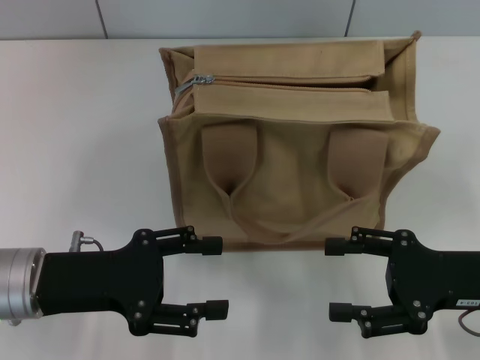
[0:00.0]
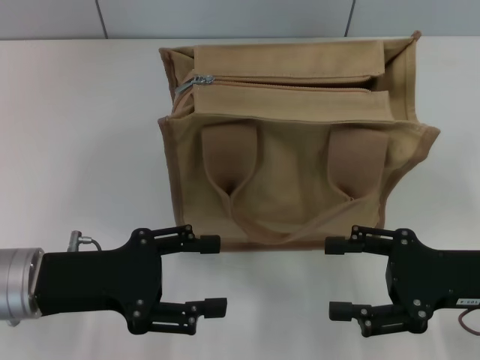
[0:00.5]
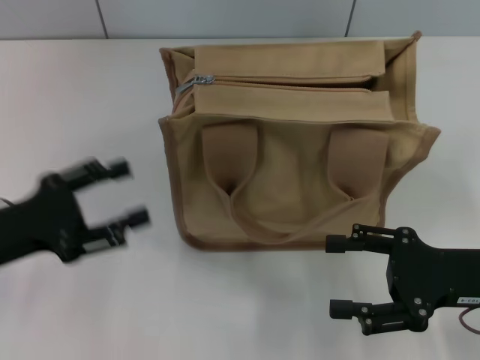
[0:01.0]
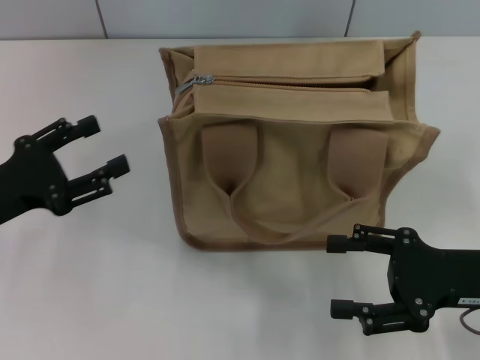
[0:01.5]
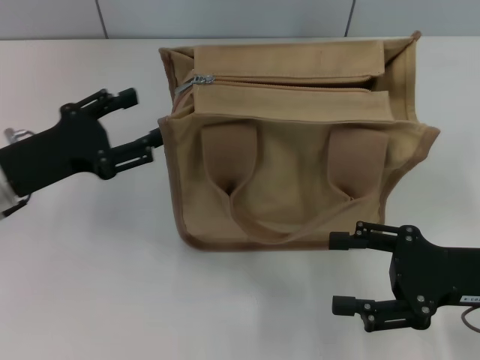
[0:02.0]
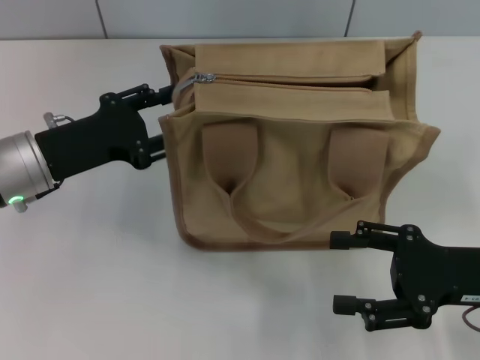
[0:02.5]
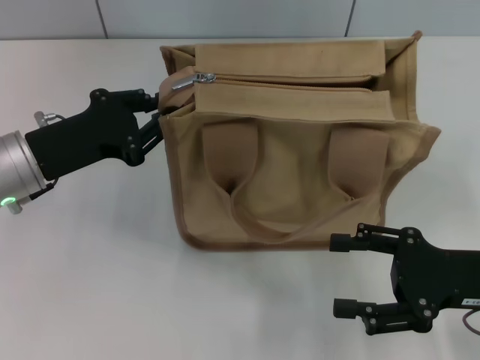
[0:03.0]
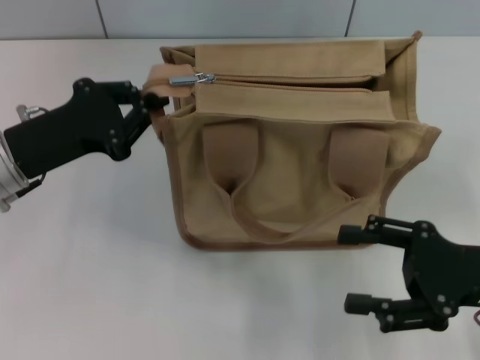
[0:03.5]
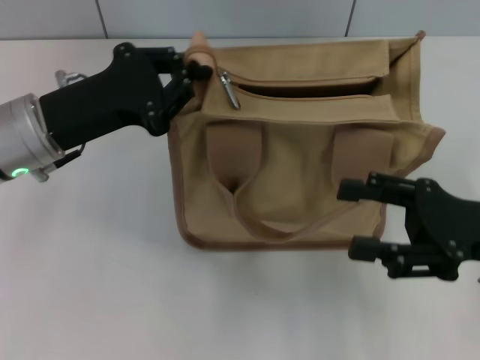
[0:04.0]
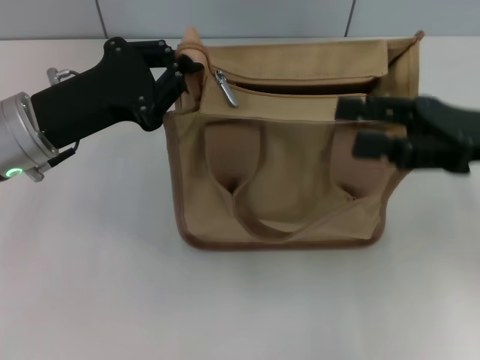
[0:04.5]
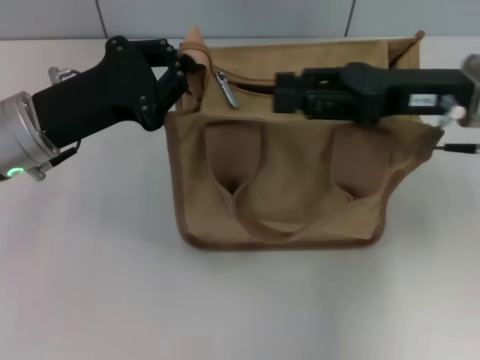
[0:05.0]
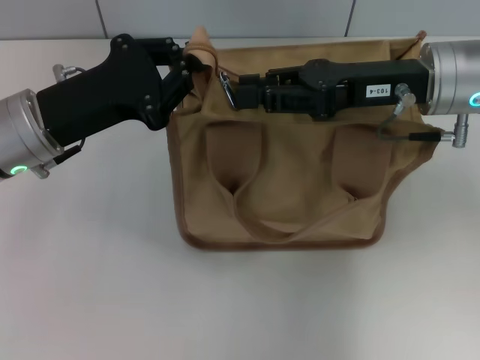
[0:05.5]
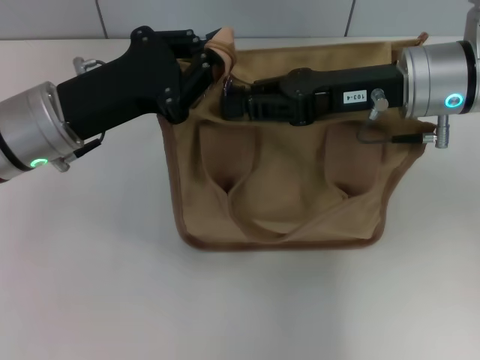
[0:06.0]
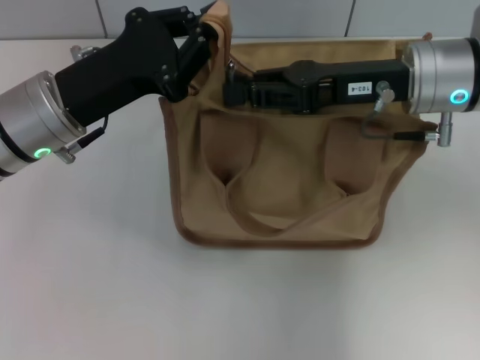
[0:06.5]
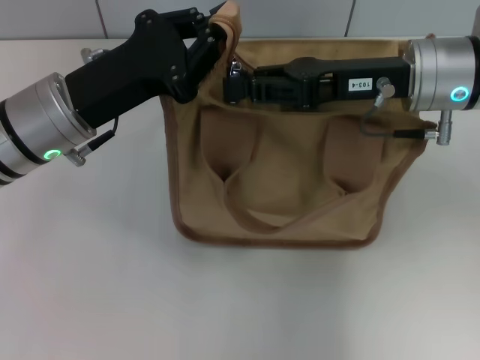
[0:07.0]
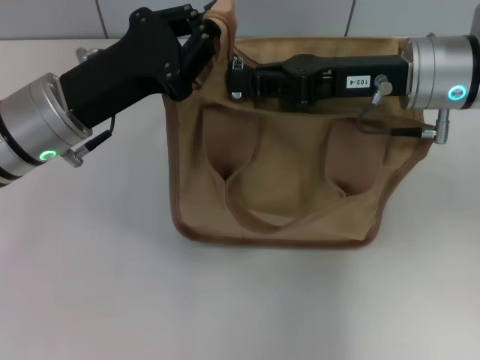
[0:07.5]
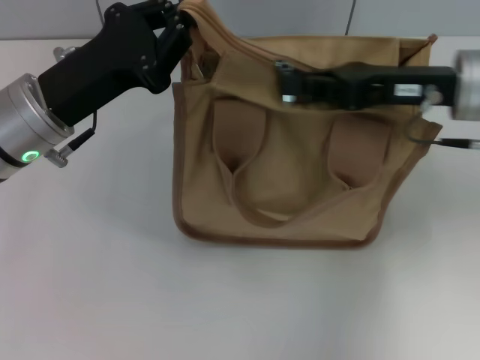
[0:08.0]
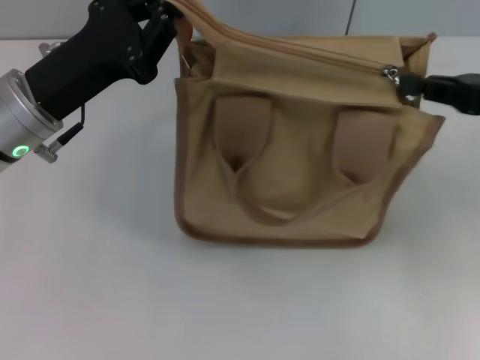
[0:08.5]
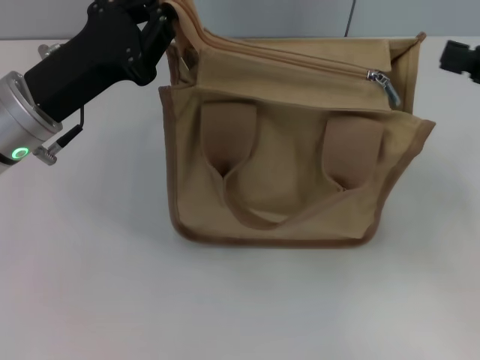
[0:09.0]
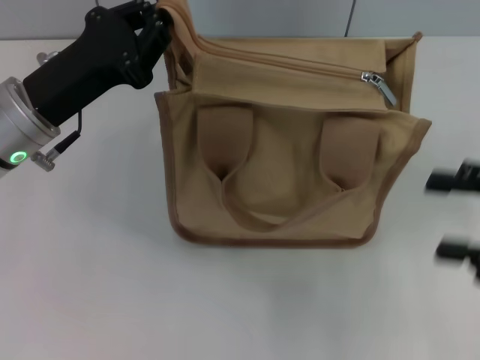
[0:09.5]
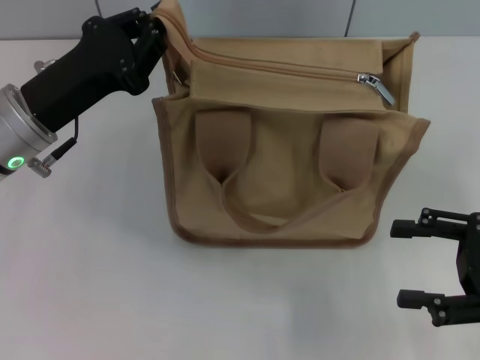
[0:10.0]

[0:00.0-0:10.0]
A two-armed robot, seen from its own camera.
Step, 0.0 to 8.5 s: Pull up the zipper with your right hand.
0.0 to 2.0 s: The left gripper goes roughly 5 cm forward.
2.0 to 4.0 s: The left gripper shifts approximately 5 cm to the right, and closes its fingers.
4.0 to 6.0 s: The right gripper heads forward, to the left and upward, covering some 15 cm, and closes.
6.0 to 8.0 s: The right gripper moves about 5 cm, and closes up.
8.0 to 10.0 s: The right gripper goes approximately 20 cm backward, to the right and downward, and opens up.

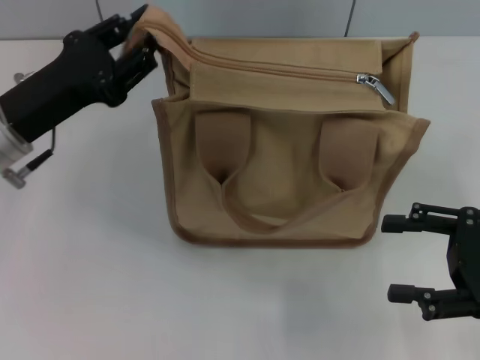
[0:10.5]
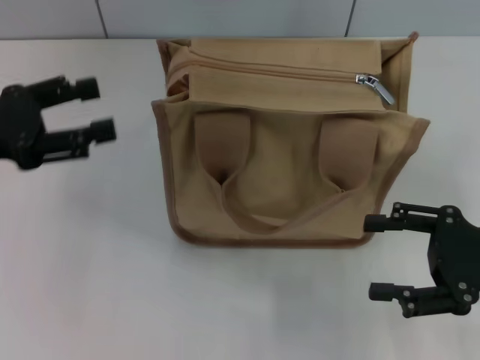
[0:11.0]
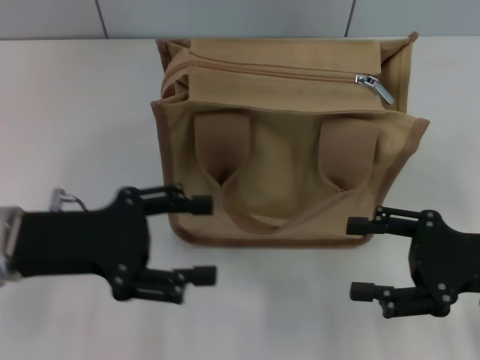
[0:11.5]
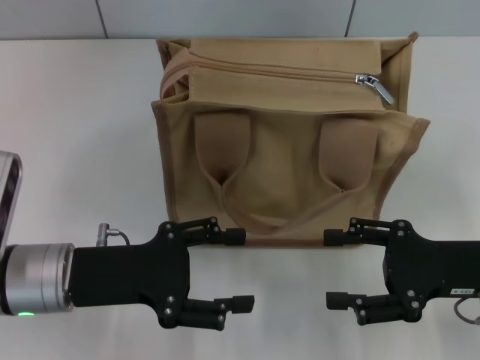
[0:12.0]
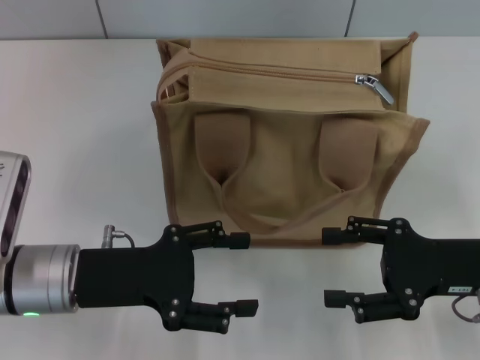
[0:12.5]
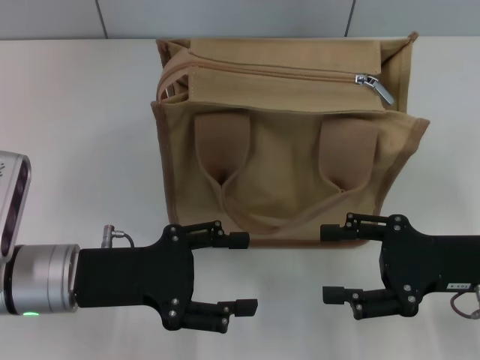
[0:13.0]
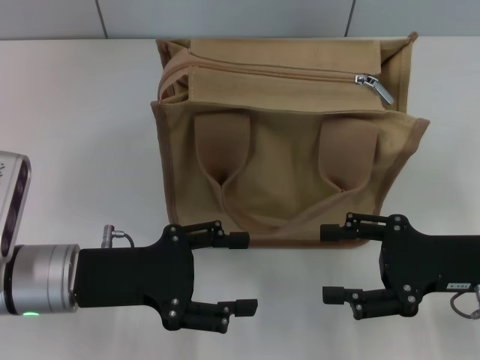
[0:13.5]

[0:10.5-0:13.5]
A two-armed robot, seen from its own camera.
10.5 to 12.0 s: The right gripper changes place by approximately 5 cm. Meanwhile the left gripper is displaced backward and downward by approximately 10 cm, goes to the left and returns, about 5 cm each way, and opens.
12.0 to 13.5 s: The two grippers keep their place.

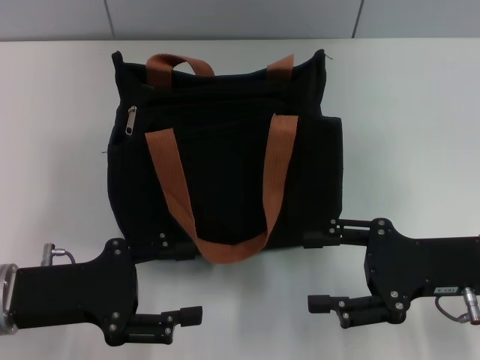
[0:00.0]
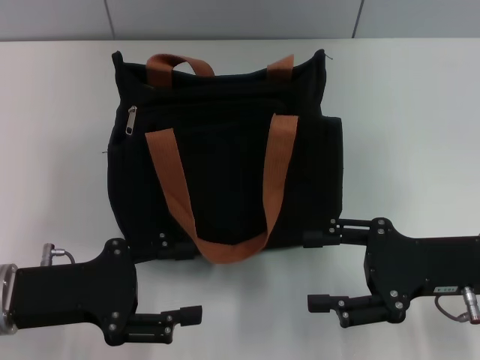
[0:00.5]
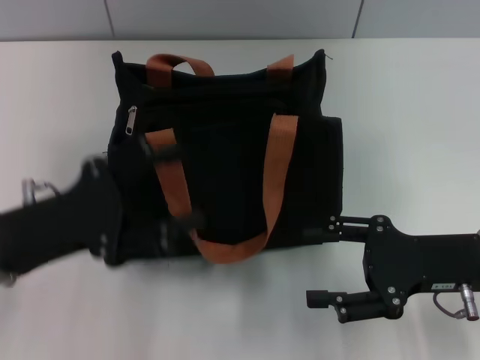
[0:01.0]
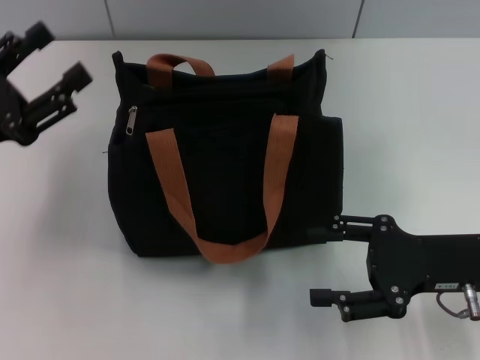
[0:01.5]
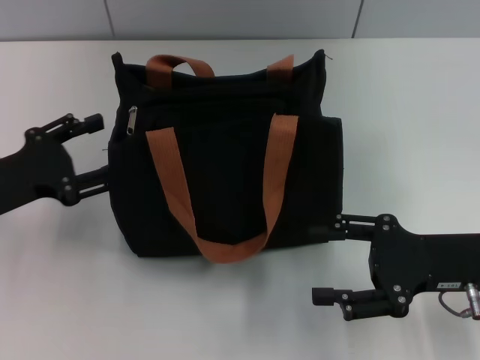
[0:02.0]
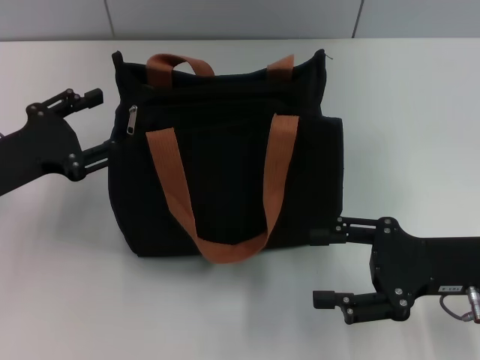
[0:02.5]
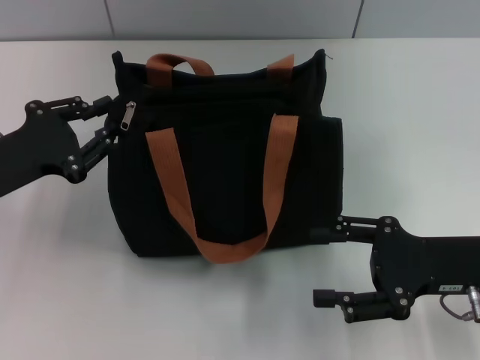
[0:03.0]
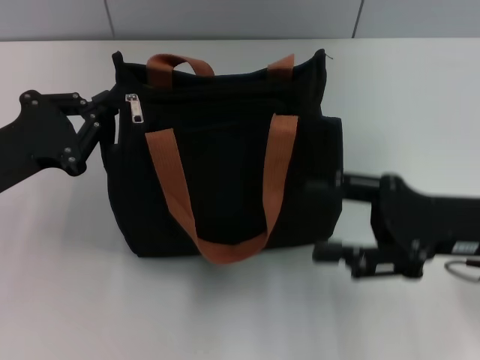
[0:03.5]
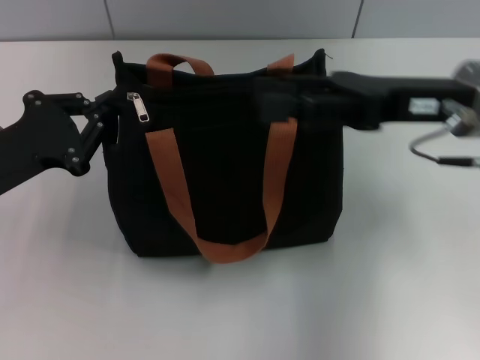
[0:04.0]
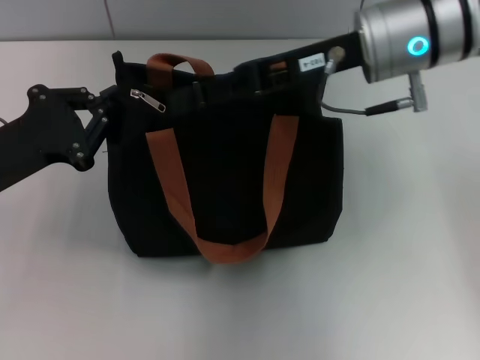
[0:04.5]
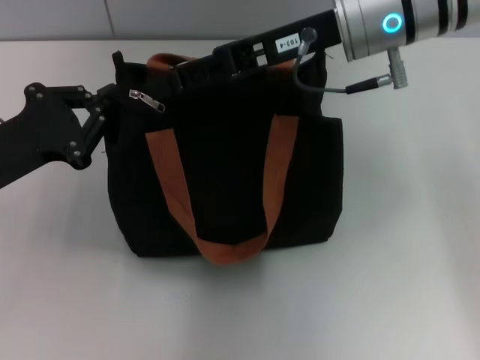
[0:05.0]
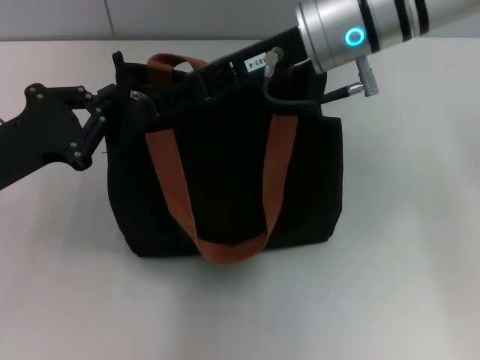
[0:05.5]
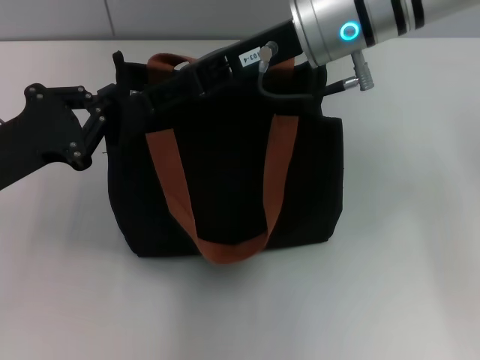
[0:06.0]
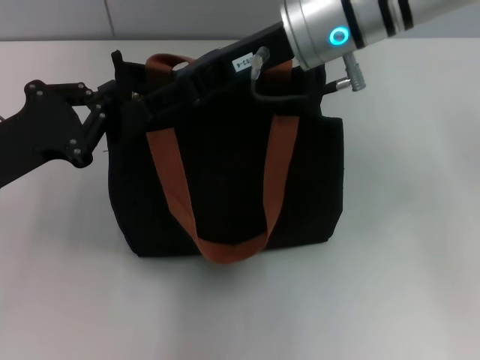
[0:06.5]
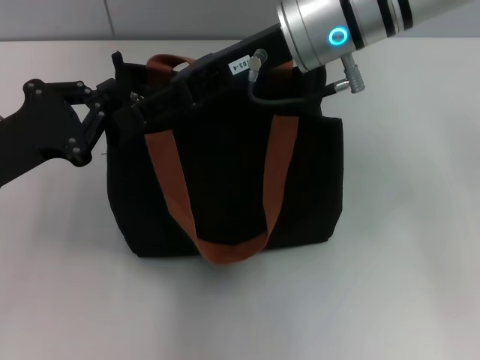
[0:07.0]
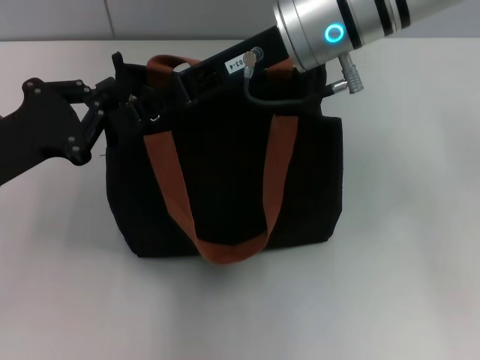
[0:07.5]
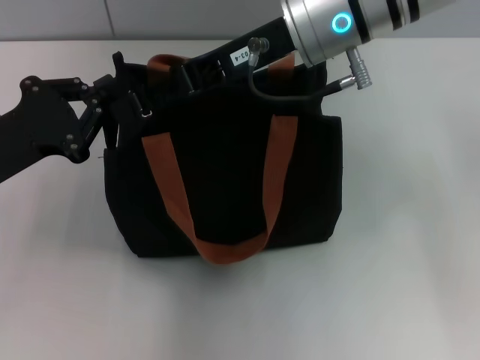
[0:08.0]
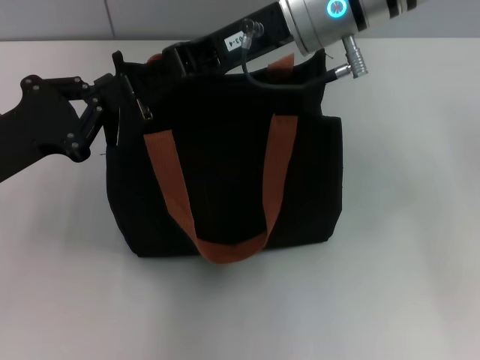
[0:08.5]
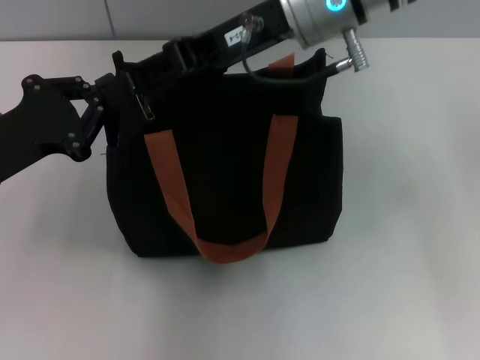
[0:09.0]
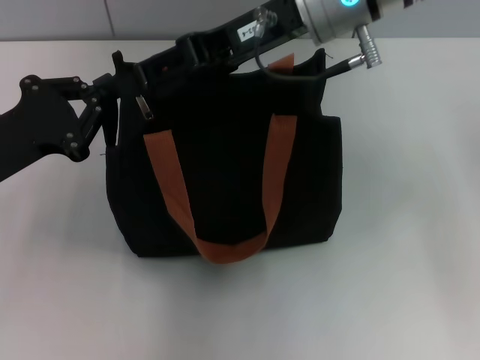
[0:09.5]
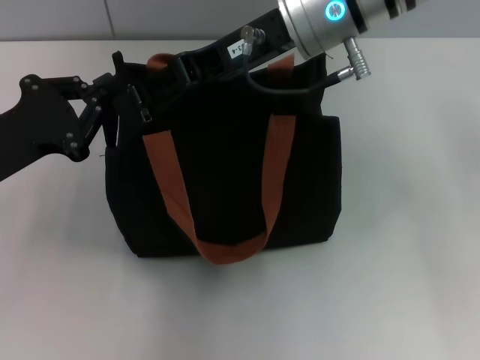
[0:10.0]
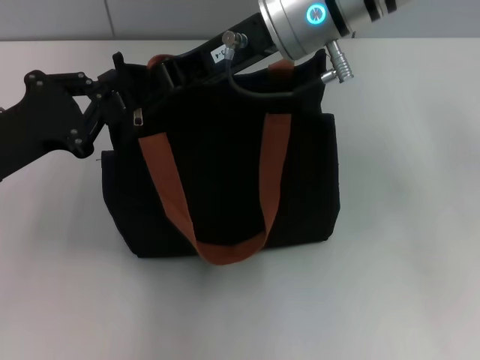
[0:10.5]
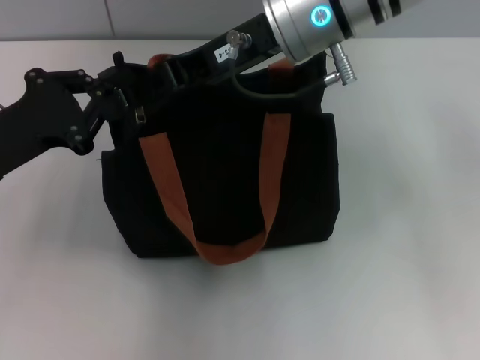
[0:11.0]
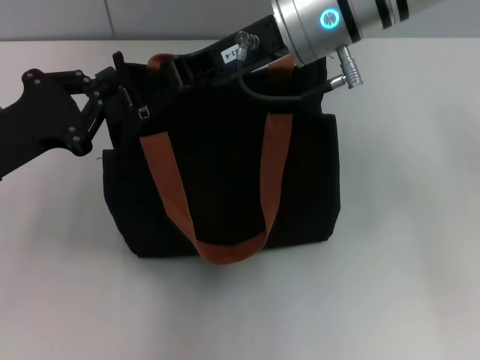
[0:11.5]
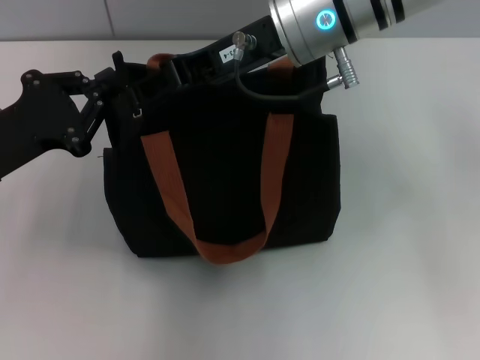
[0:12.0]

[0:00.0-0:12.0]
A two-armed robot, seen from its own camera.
0.0 to 2.0 s: The left gripper heads forward and to the left, covering roughly 5 cm.
2.0 to 4.0 s: The left gripper closes up. The right gripper heads upward, forward and to the left, covering about 15 cm.
4.0 to 6.0 s: The right gripper heads to the left and forward, covering about 15 cm.
6.0 to 10.0 s: There are only small adjustments of the grippers.
10.0 to 12.0 s: Both grippers stay put.

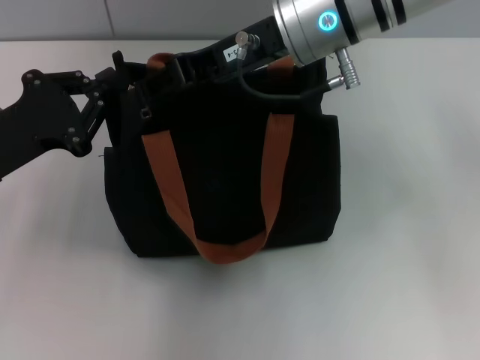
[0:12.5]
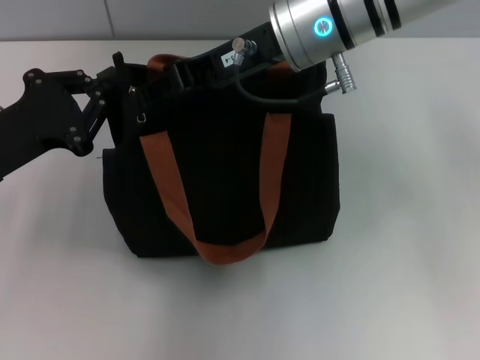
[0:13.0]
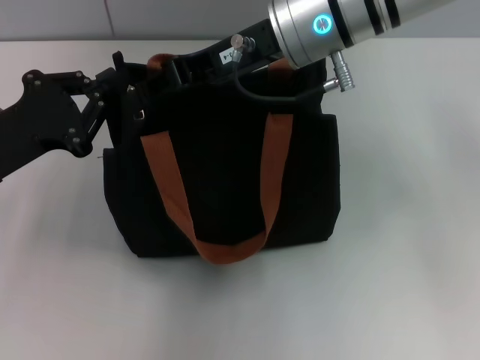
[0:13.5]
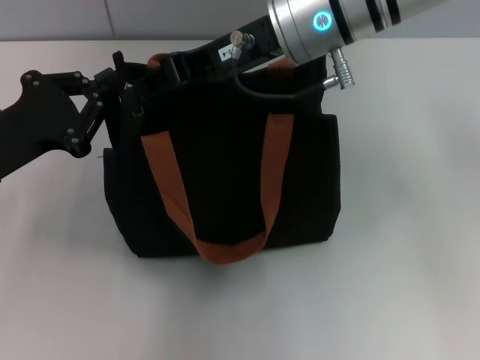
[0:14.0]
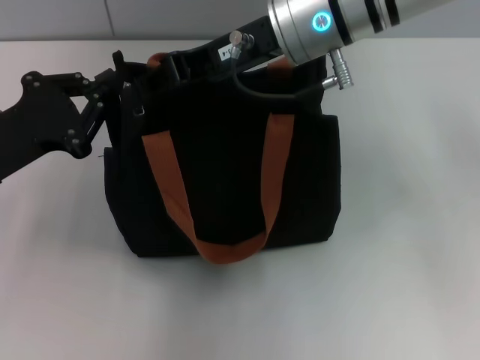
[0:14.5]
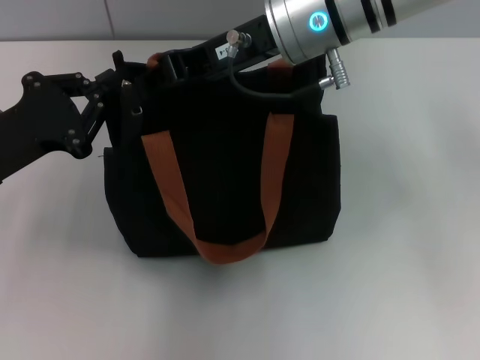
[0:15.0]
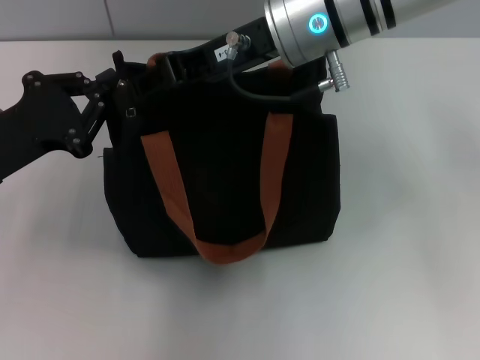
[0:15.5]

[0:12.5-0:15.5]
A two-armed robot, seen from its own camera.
12.5 to 15.5 s: The two grippers keep their place.
